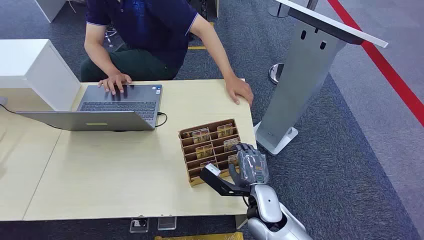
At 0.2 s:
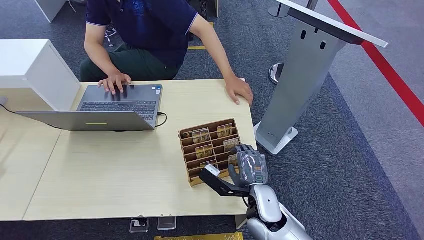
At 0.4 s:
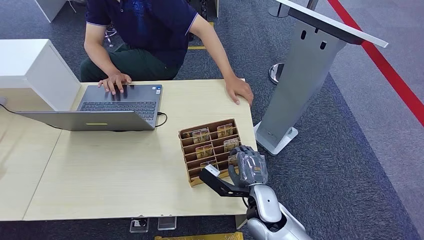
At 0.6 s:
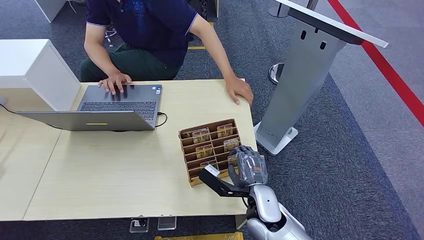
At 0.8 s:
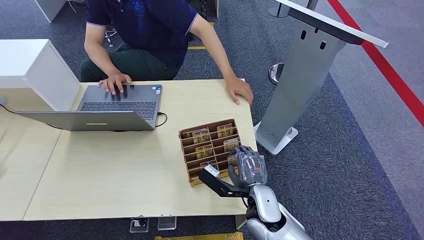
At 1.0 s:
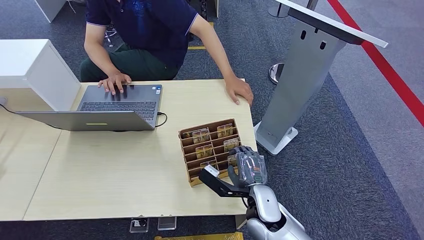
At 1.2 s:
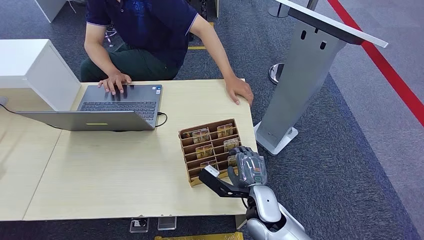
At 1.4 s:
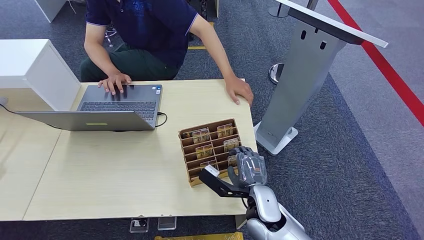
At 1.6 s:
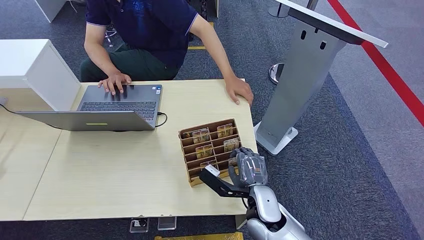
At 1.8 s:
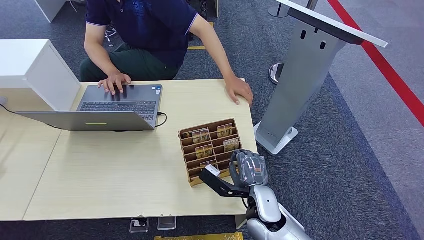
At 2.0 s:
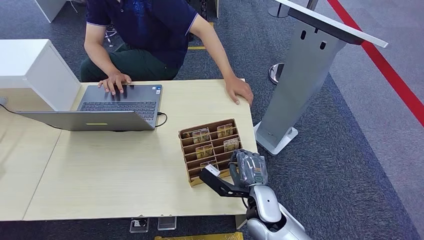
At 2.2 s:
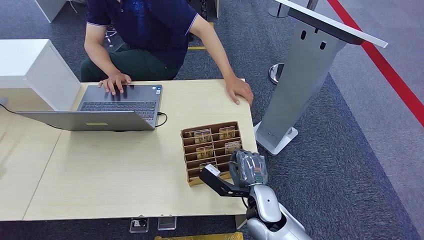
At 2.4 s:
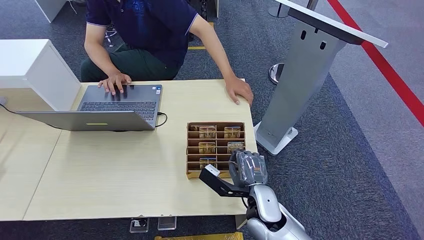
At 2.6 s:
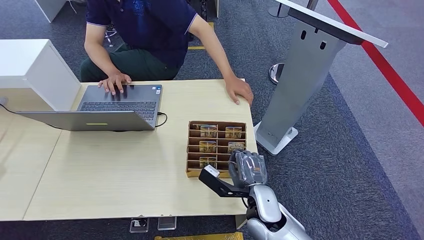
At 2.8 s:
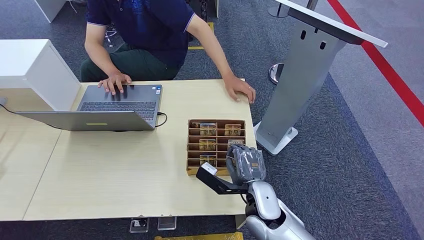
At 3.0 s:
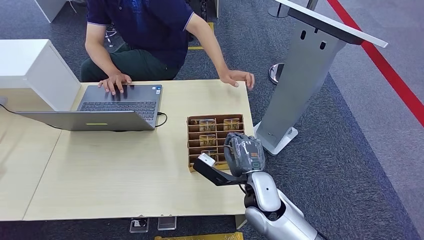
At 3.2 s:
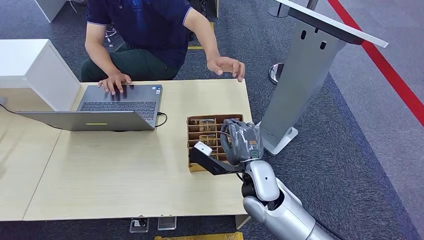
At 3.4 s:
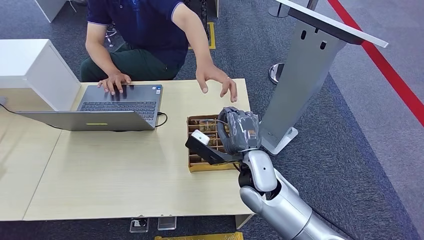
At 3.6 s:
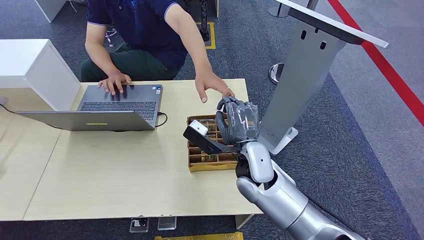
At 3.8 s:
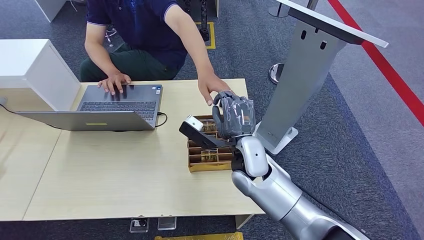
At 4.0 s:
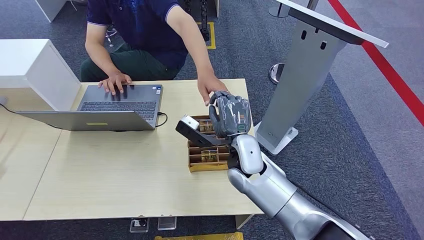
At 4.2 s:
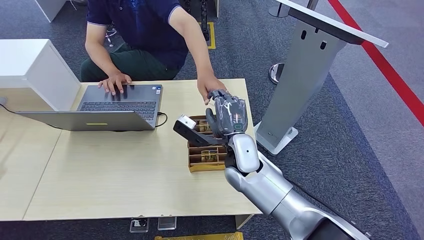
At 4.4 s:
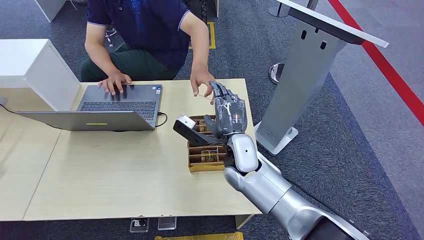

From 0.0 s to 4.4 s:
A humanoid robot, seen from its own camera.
Step, from 0.0 s to 2.8 s: Pick up the room card from the card holder.
Step, from 3.0 s to 4.4 s: Hand the room card to the target.
From 1.4 s to 3.0 s: The hands stay close to where they were, moving slightly.
From 3.0 s to 4.4 s: The right hand shifts about 10 cm forward and upward.
